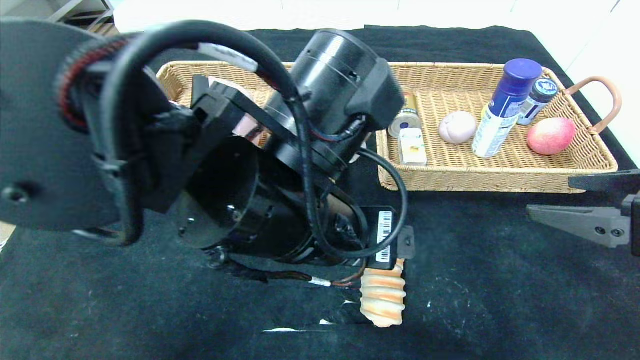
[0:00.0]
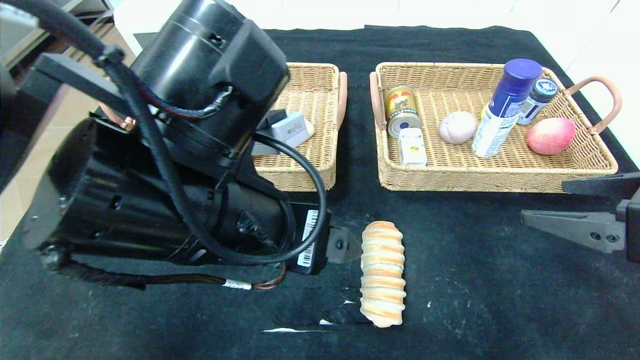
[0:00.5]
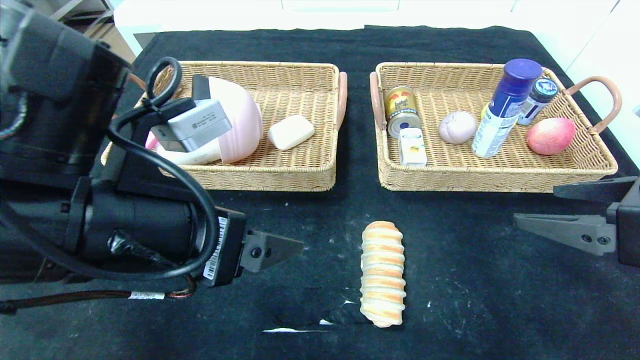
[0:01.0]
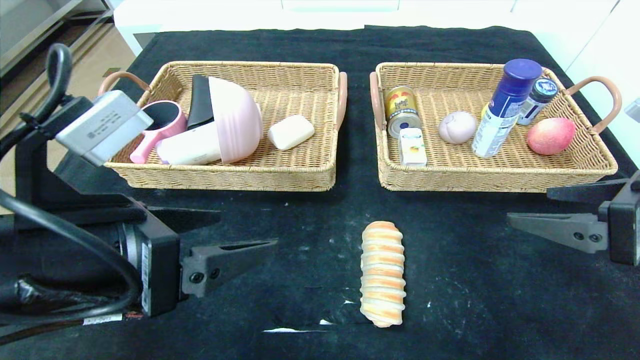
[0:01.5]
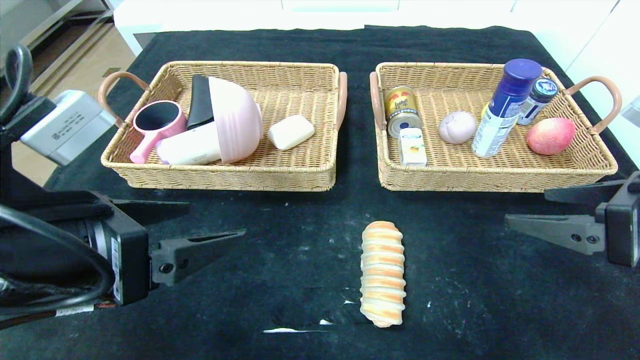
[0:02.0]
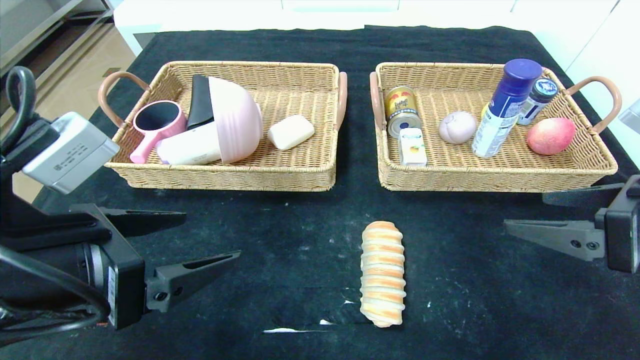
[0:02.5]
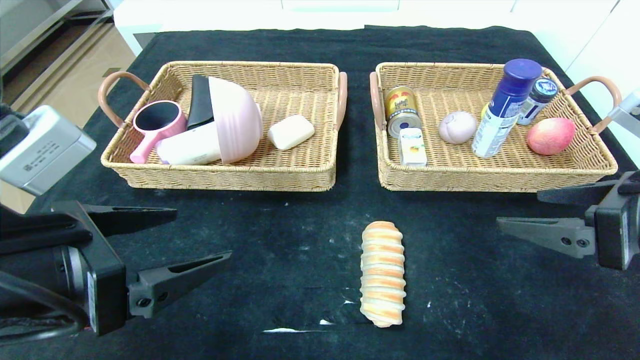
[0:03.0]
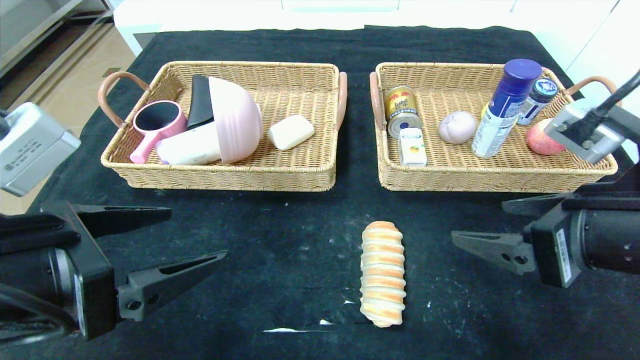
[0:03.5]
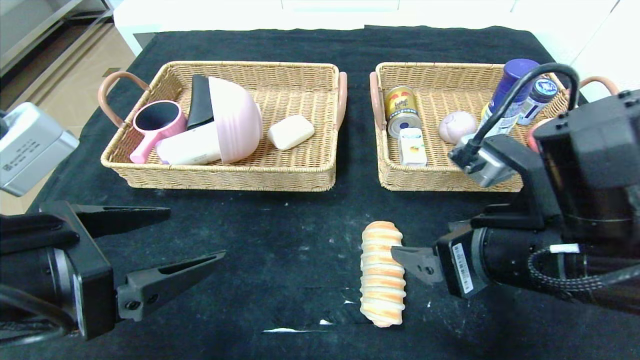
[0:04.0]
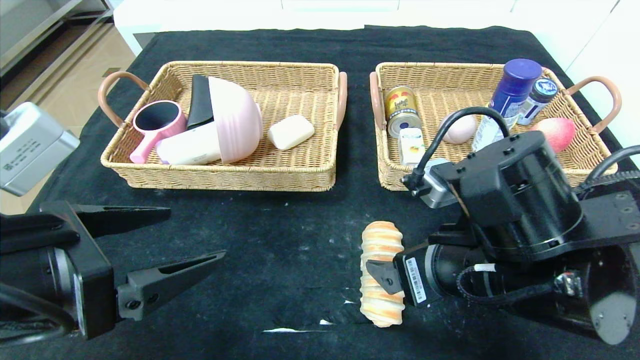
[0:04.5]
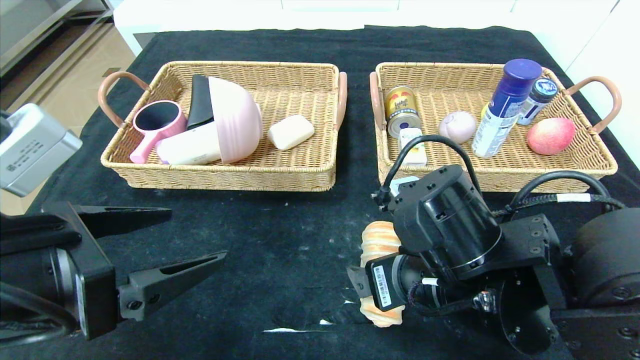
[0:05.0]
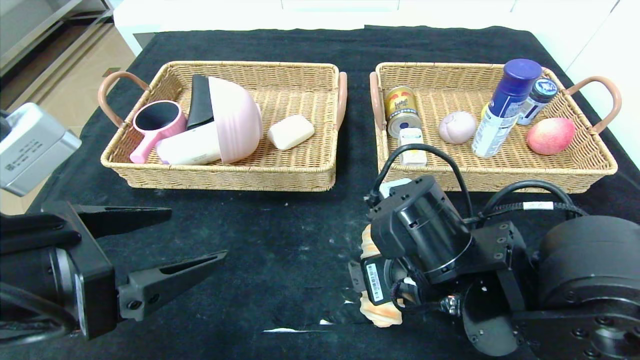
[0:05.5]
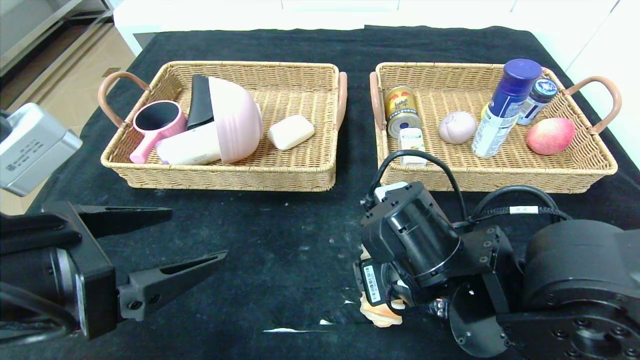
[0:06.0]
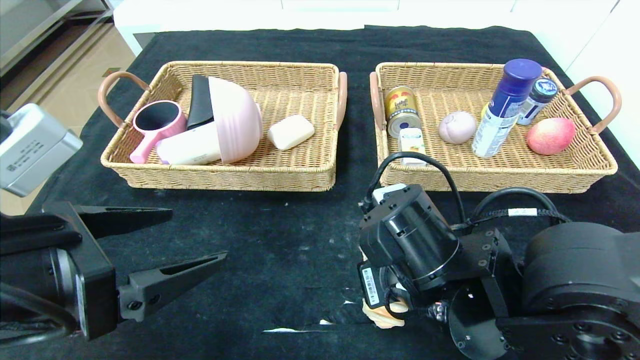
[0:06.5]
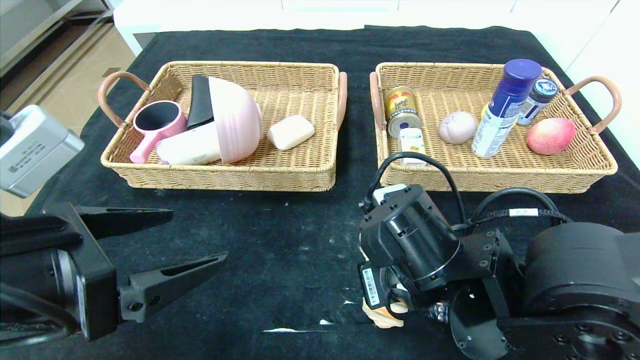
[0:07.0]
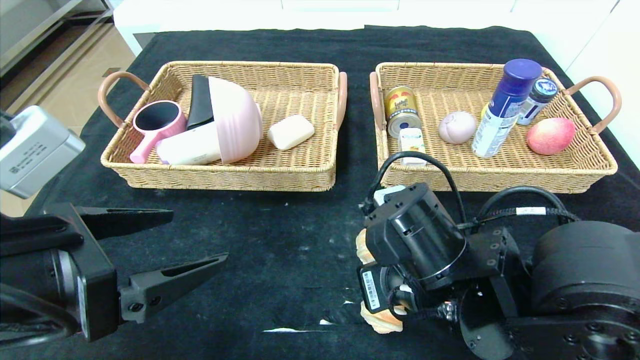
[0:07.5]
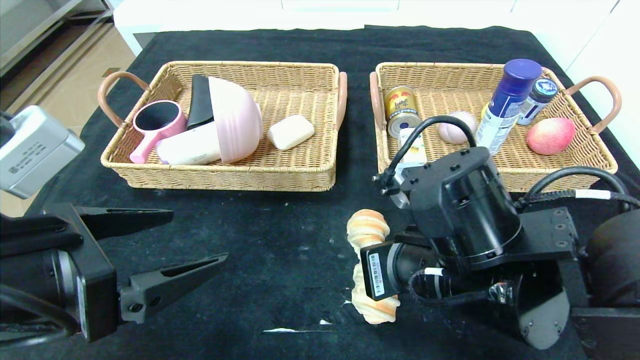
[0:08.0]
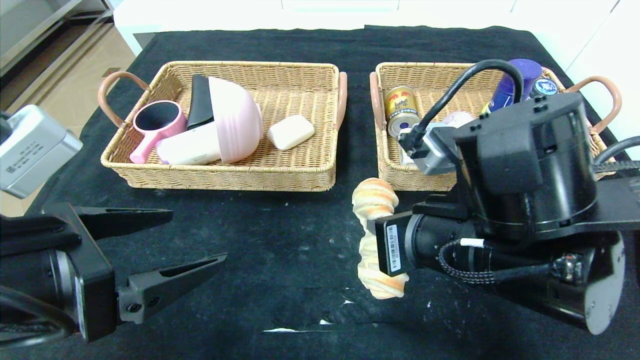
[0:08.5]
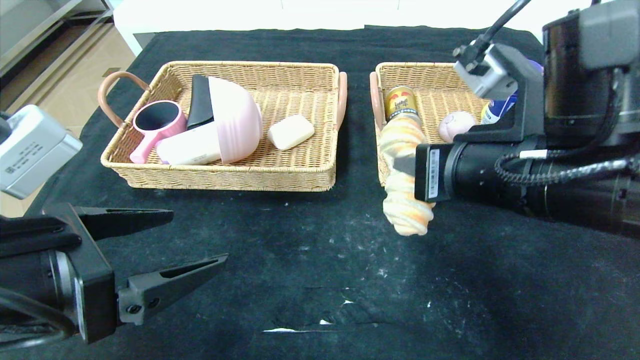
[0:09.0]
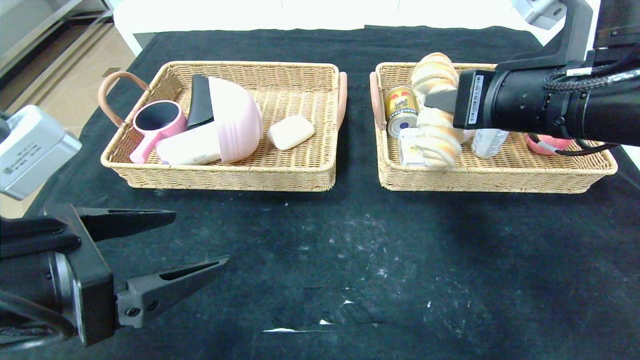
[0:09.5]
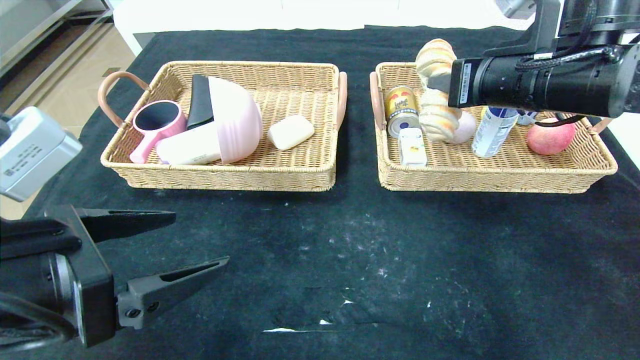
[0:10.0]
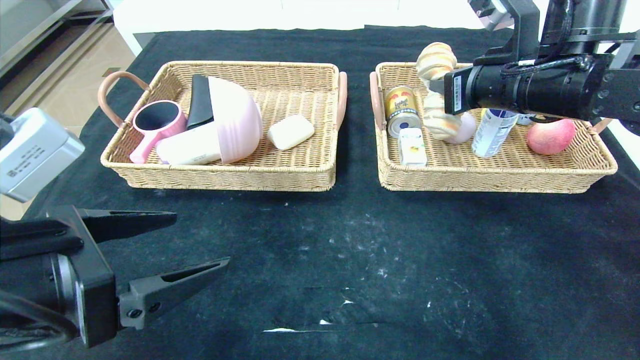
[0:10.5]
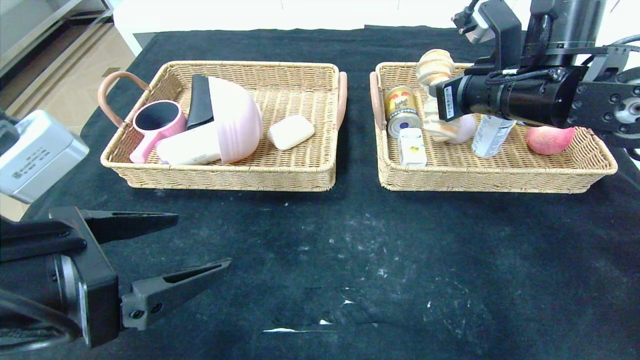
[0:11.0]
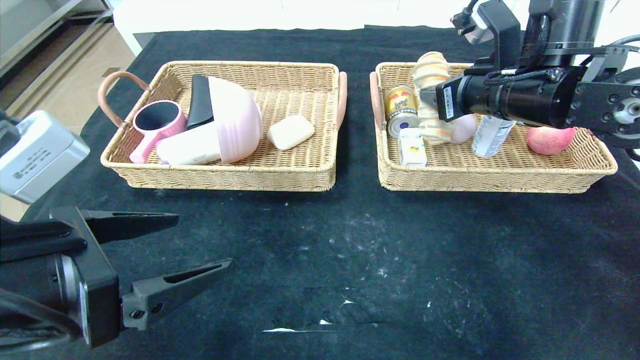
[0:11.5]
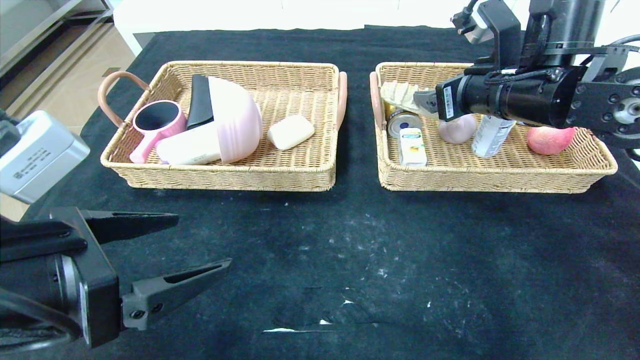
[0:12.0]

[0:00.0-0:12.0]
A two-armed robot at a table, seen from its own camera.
0:00.0 to 0:02.0: The left gripper travels to the left by some 20 cm.
0:02.0 to 0:04.0: The right gripper moves to the left, about 15 cm.
0:04.0 to 0:06.0: The right gripper shifts about 10 cm to the left and downward.
0:06.0 to 0:08.0: The right gripper closes.
0:08.0 to 0:10.0: The right gripper goes some 20 cm upward, forward and to the right.
0:10.0 to 0:12.0: The right gripper opens.

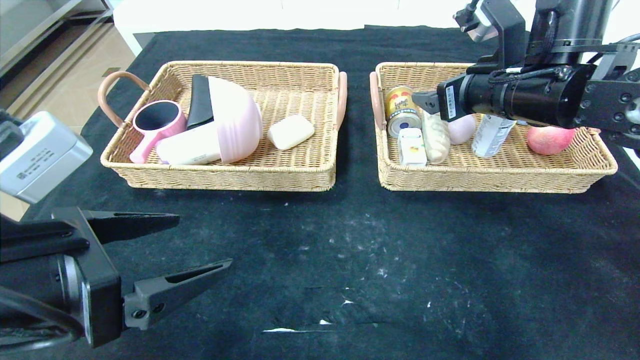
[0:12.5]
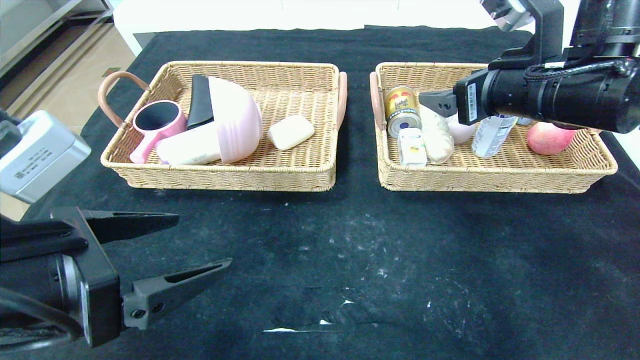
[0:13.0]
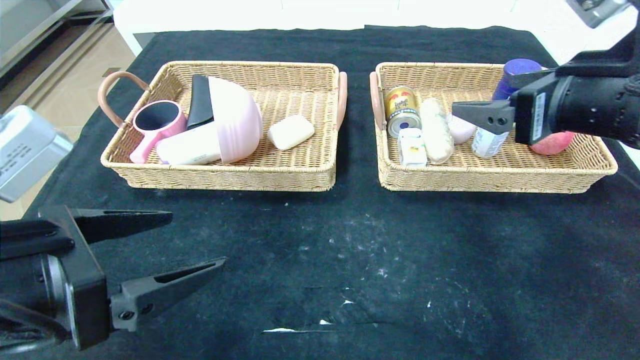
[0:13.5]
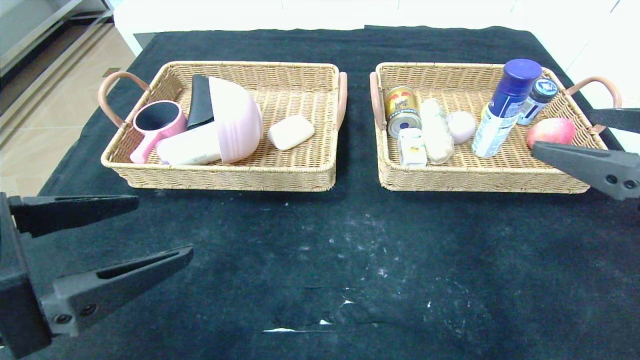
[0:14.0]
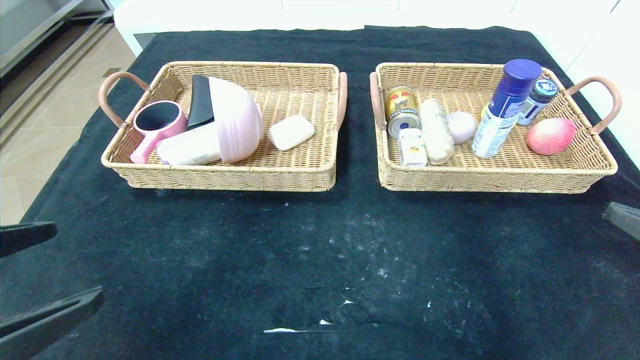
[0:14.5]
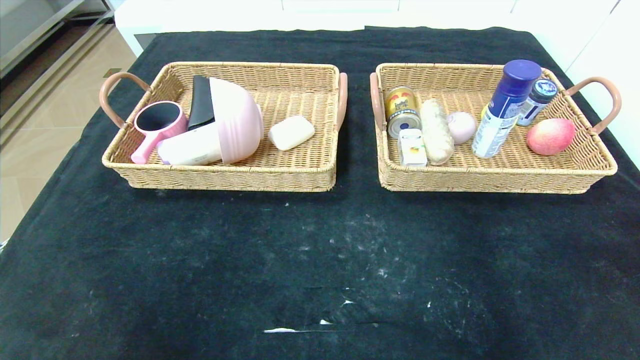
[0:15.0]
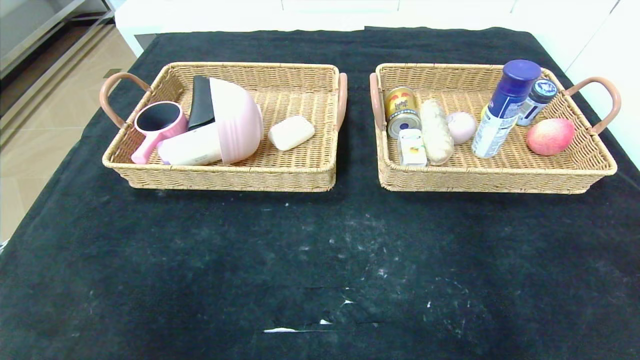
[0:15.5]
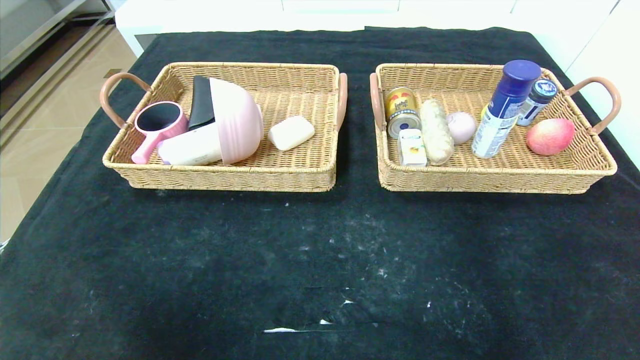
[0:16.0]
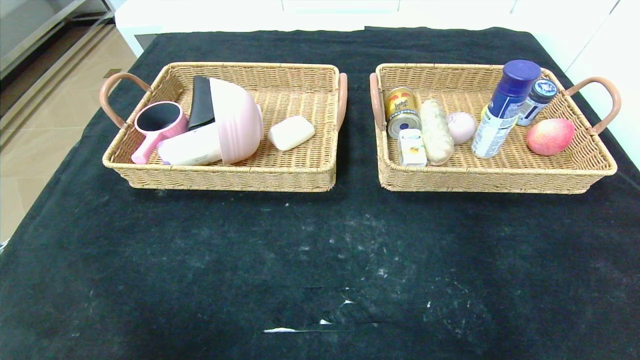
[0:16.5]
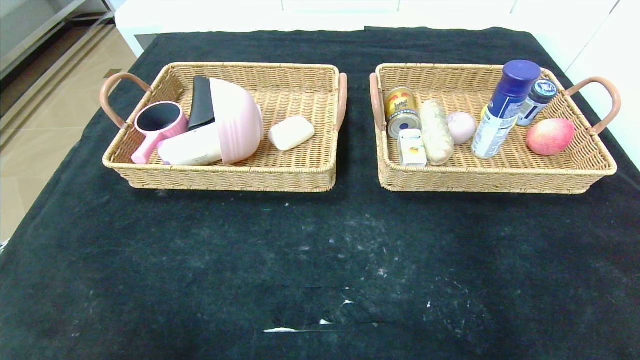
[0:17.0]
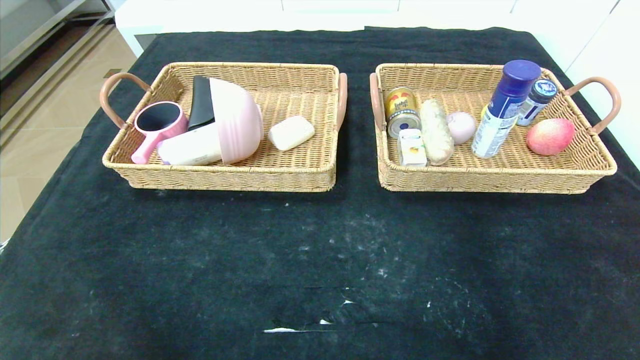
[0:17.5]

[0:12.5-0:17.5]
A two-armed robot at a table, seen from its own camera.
0:12.5 to 0:15.0: The right gripper is displaced backward and to the right by about 35 cm. Meanwhile the left gripper is displaced backward and to the left by some 15 cm.

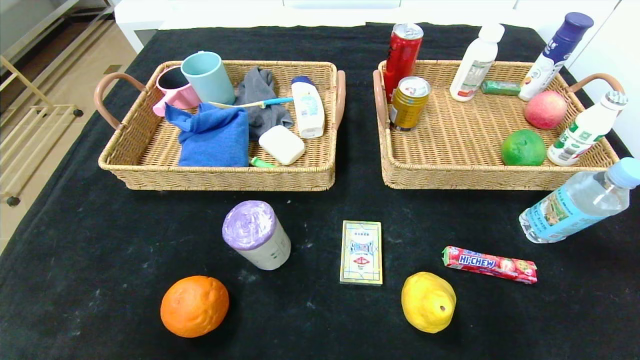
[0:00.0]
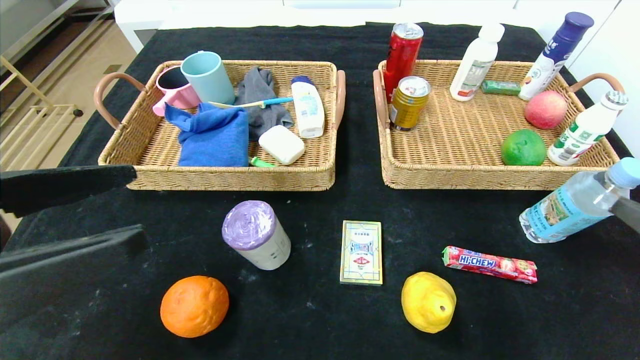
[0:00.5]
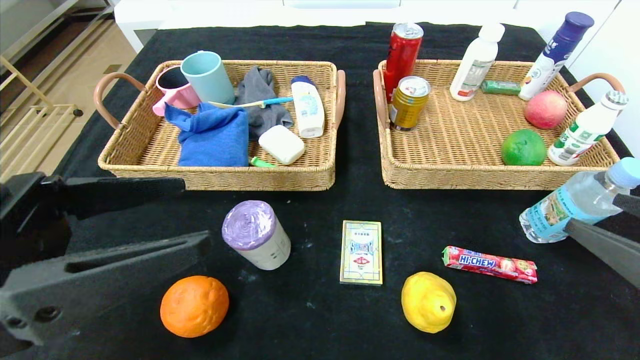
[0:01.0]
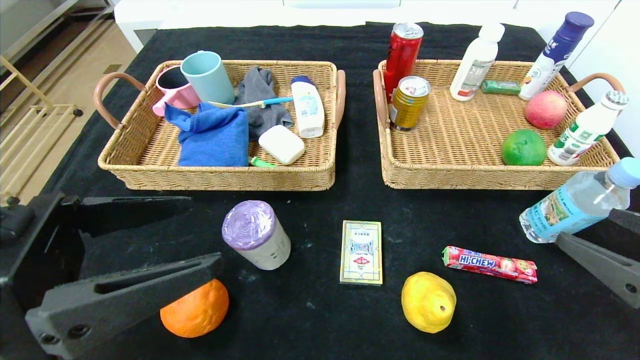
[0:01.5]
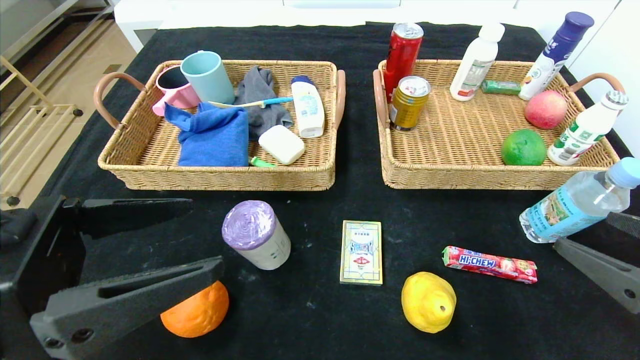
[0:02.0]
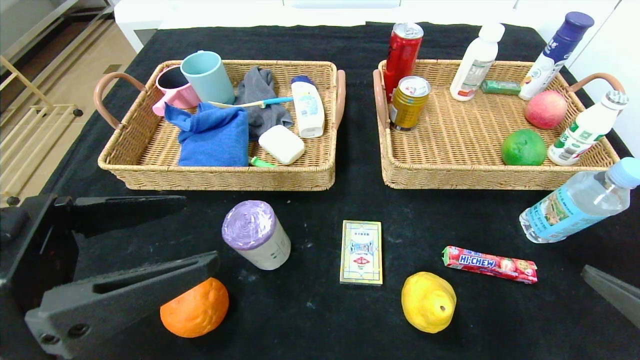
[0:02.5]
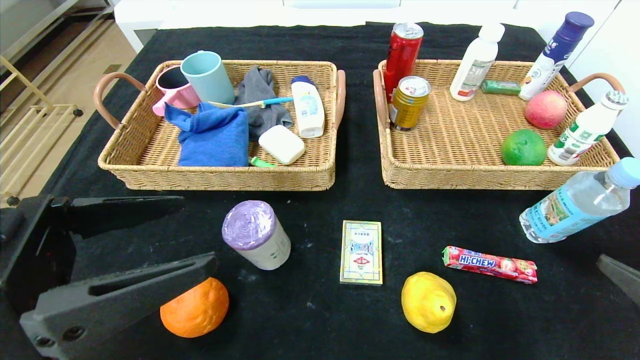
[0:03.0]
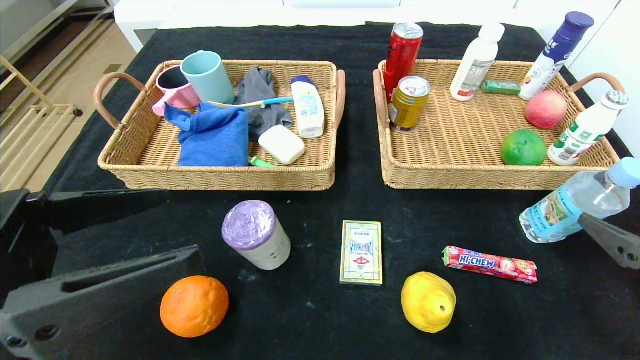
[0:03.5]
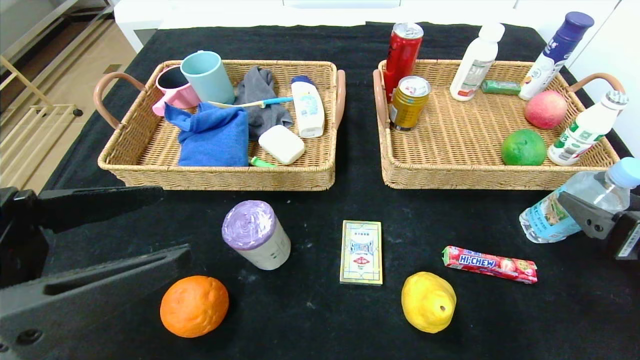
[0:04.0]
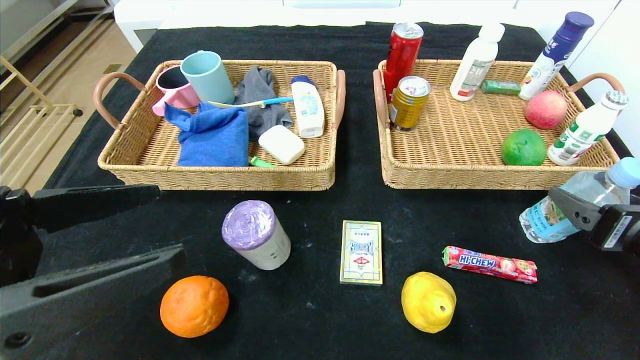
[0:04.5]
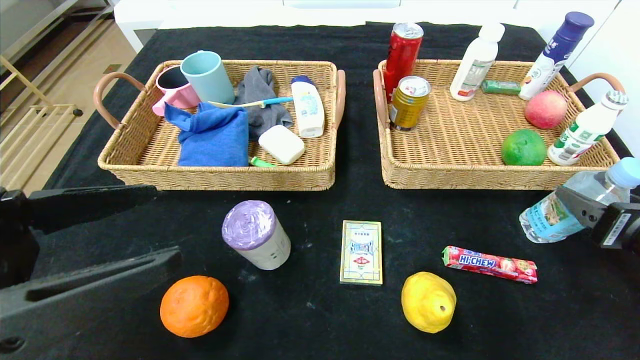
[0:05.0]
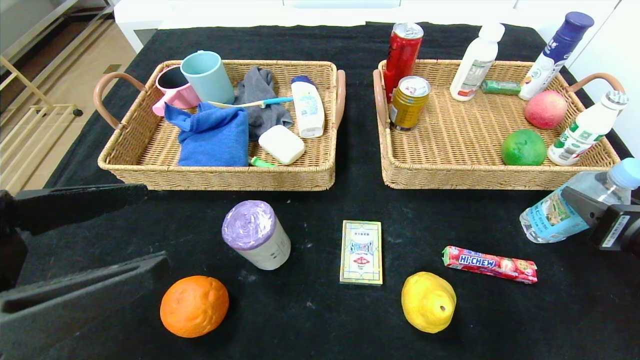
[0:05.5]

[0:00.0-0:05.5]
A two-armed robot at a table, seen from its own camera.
0:00.0 to 0:02.0: The right gripper goes roughly 10 cm forward; the left gripper heads forward and to the right, covering approximately 10 cm.
0:03.5 to 0:05.5: The right gripper heads forward, covering roughly 5 cm, and closes its fingers.
